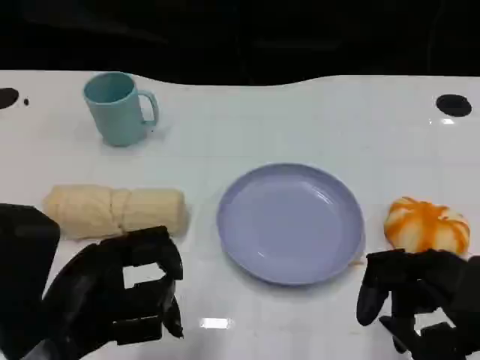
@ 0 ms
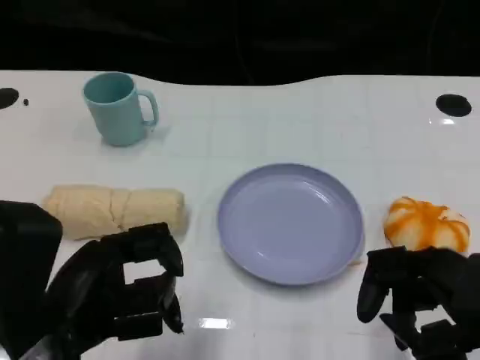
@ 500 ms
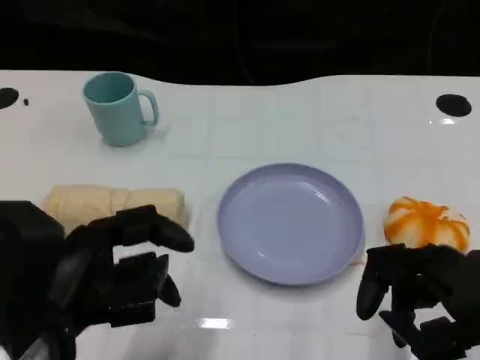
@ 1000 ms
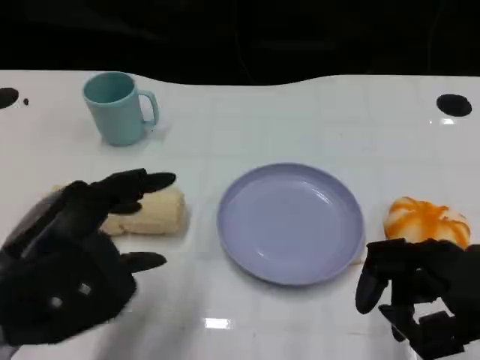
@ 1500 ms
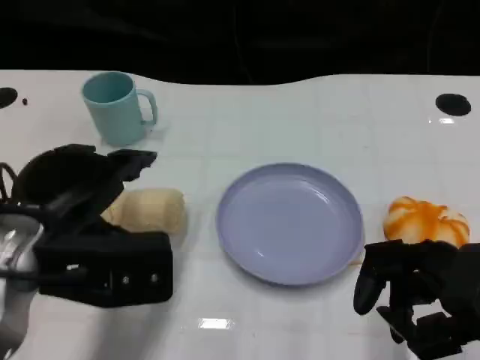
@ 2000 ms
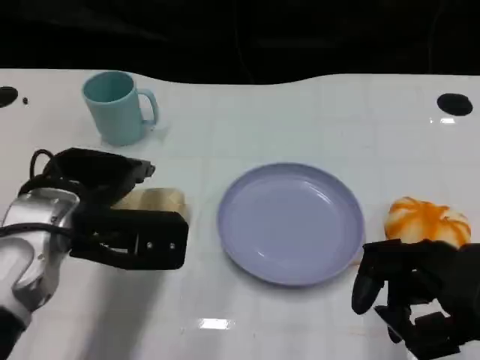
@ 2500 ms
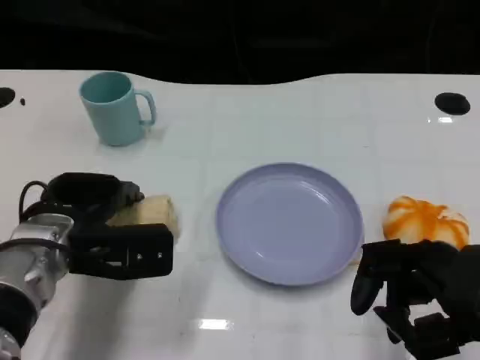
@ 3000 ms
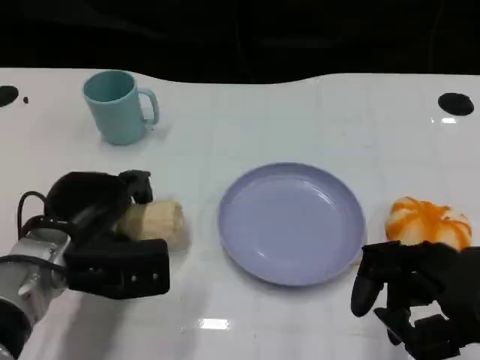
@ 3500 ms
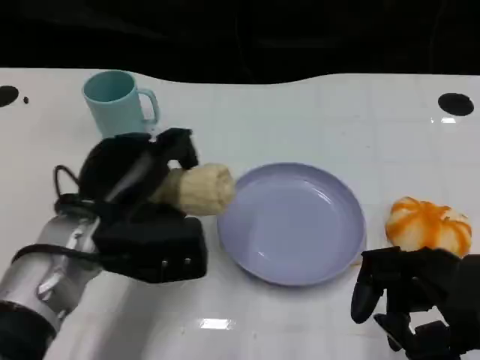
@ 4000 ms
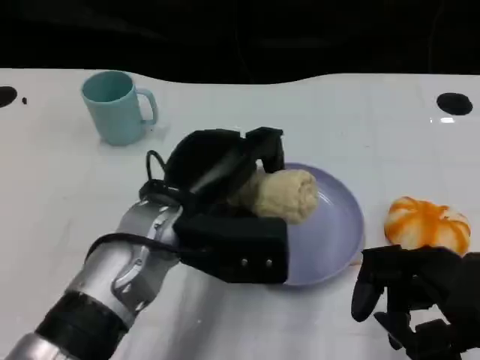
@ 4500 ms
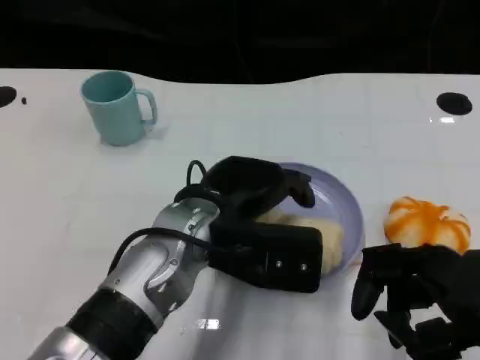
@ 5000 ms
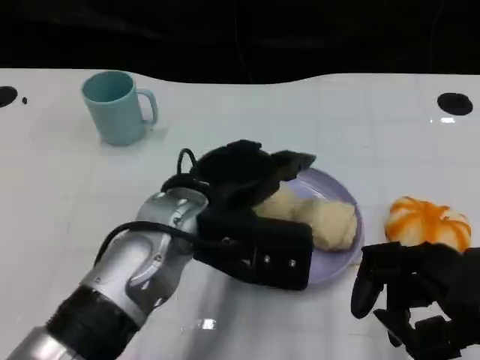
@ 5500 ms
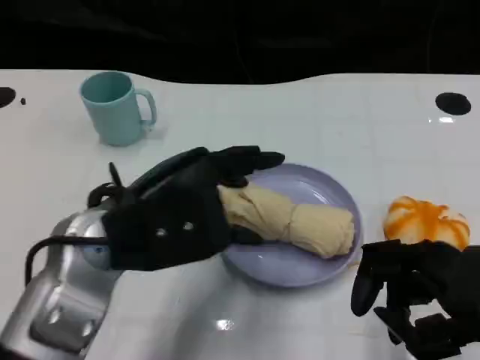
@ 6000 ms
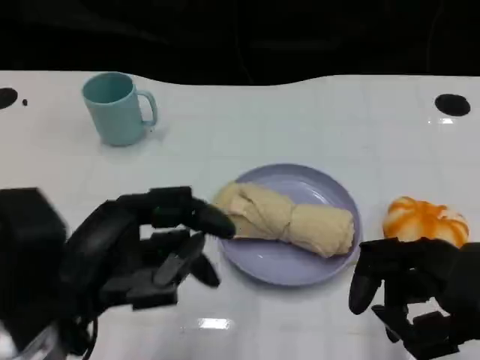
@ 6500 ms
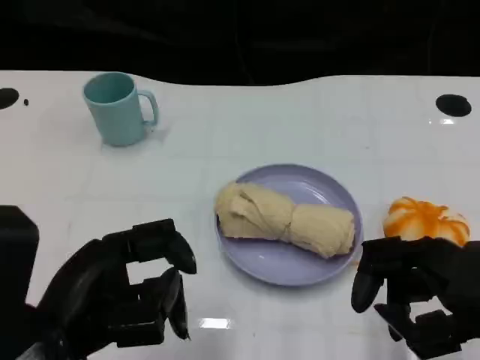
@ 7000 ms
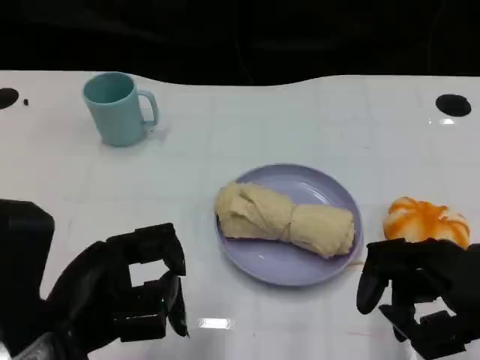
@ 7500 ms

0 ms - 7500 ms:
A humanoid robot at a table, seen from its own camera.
Task of the whole recording: Grasp the towel on the left side of the plate with the left hand and place it into the plate.
0 ms - 2000 ms: The left hand travels forward by about 10 cm.
2000 ms - 4000 ms: The left hand is displaced downward by approximately 5 cm.
4000 ms - 5500 ms: The left hand moves to the right, roughly 10 cm.
5500 ms - 7500 ms: The left hand moves to the left and backward, roughly 15 cm.
